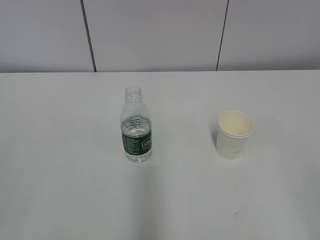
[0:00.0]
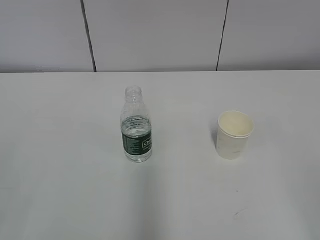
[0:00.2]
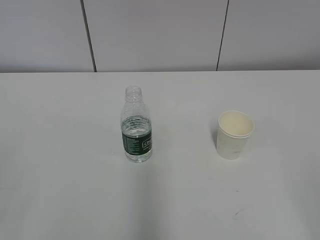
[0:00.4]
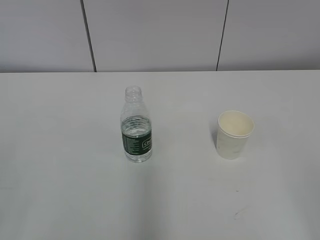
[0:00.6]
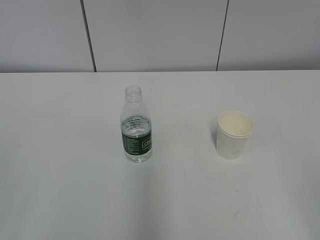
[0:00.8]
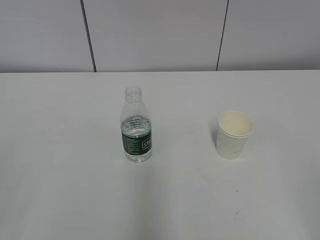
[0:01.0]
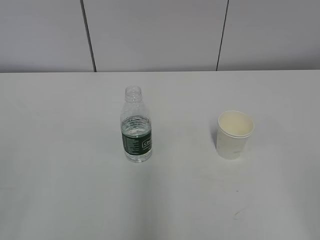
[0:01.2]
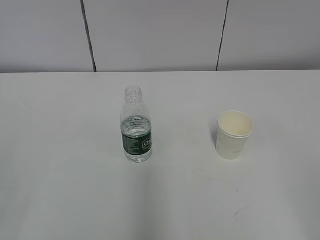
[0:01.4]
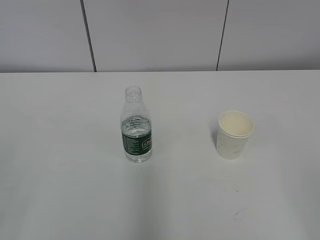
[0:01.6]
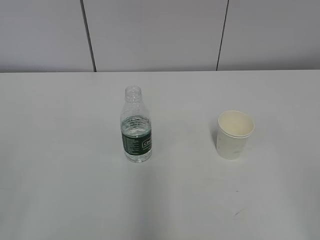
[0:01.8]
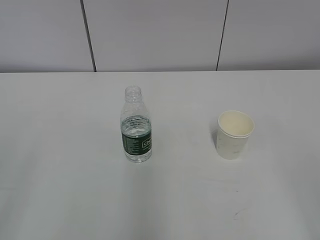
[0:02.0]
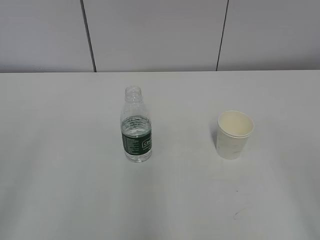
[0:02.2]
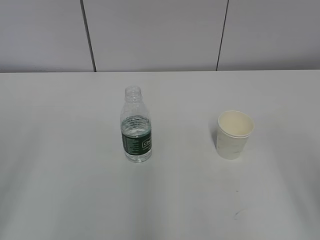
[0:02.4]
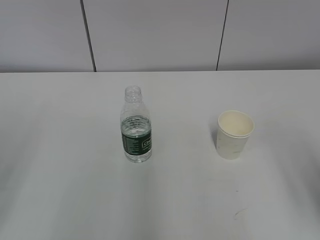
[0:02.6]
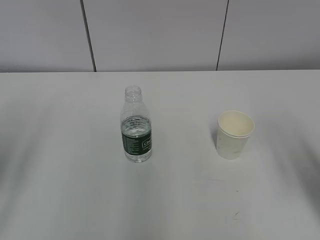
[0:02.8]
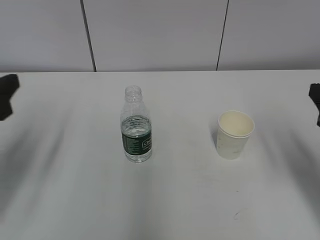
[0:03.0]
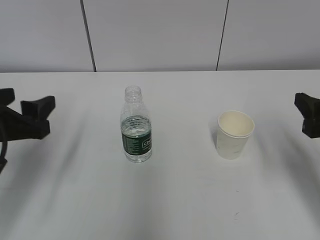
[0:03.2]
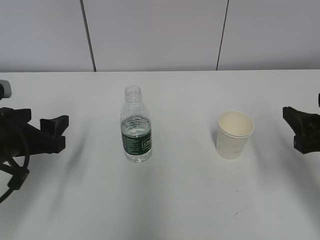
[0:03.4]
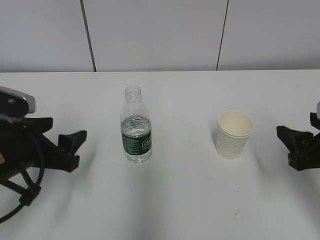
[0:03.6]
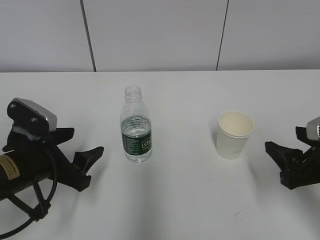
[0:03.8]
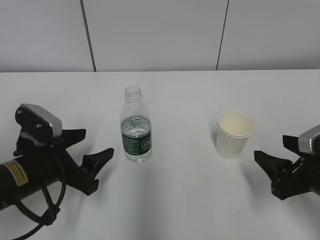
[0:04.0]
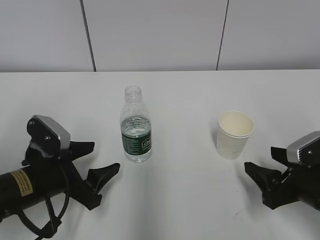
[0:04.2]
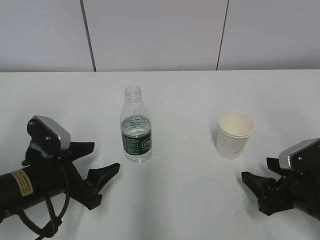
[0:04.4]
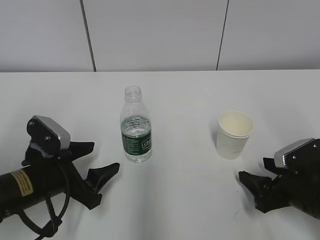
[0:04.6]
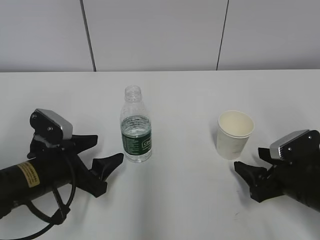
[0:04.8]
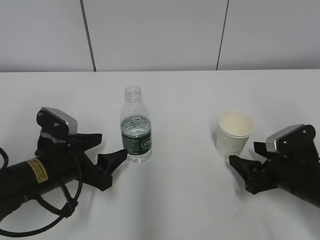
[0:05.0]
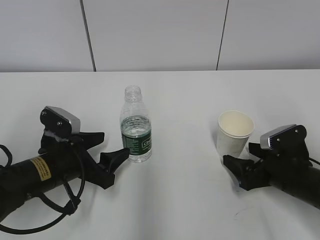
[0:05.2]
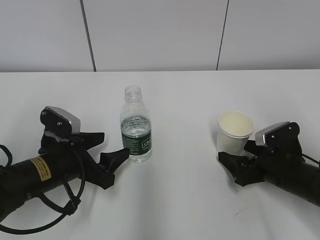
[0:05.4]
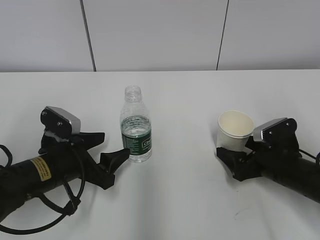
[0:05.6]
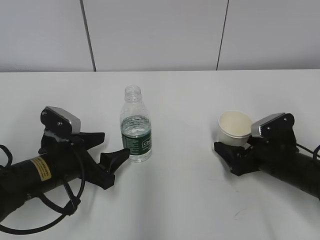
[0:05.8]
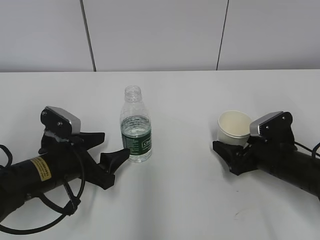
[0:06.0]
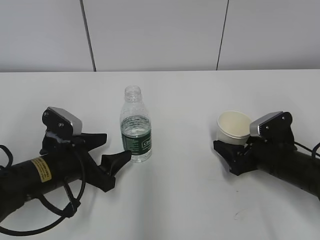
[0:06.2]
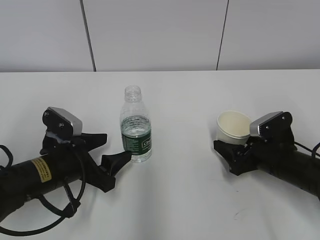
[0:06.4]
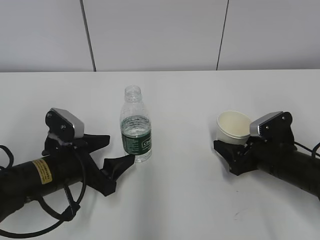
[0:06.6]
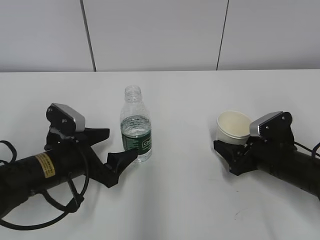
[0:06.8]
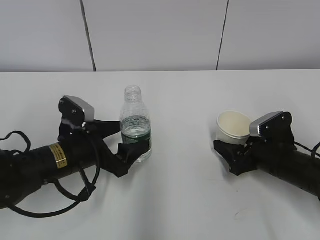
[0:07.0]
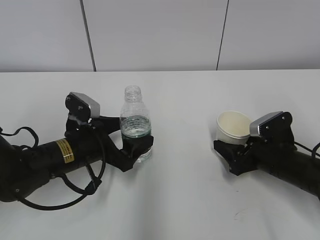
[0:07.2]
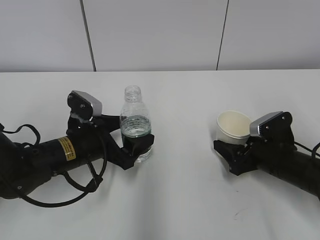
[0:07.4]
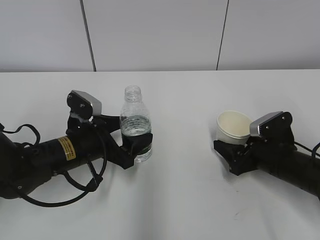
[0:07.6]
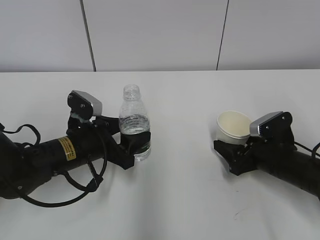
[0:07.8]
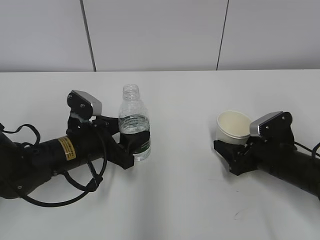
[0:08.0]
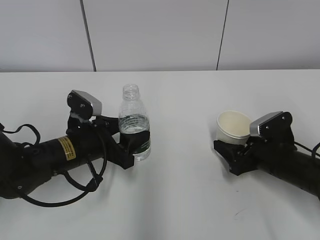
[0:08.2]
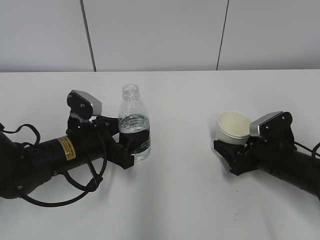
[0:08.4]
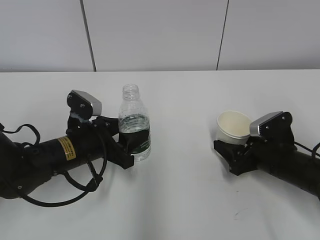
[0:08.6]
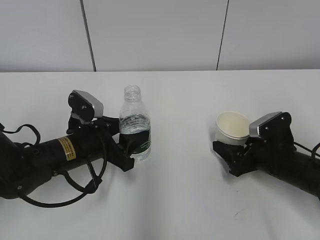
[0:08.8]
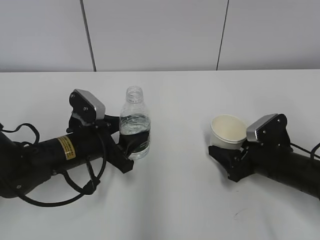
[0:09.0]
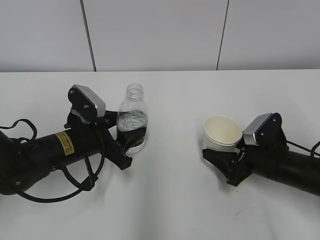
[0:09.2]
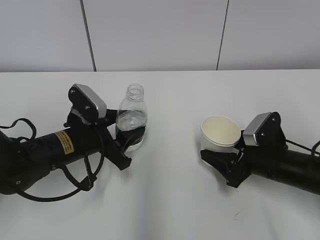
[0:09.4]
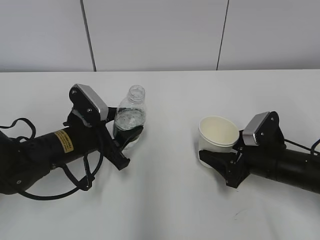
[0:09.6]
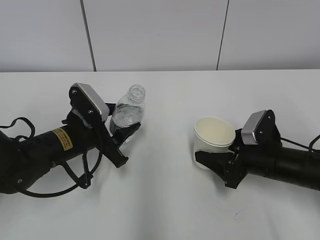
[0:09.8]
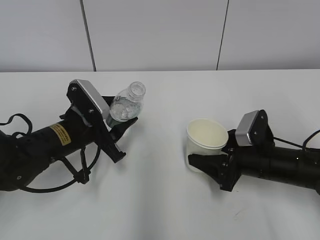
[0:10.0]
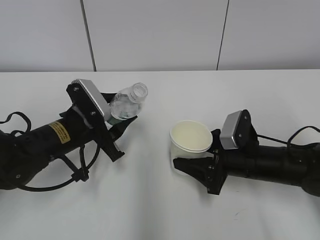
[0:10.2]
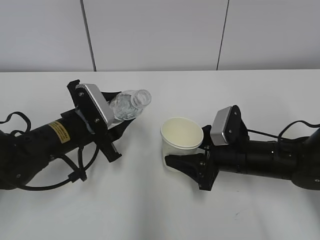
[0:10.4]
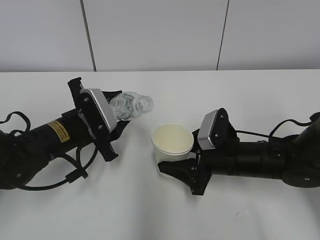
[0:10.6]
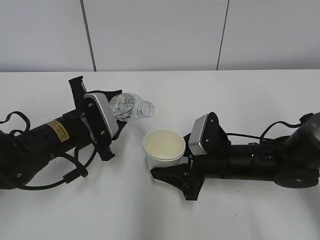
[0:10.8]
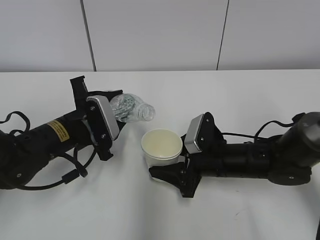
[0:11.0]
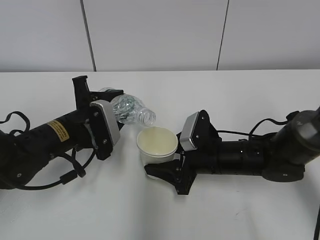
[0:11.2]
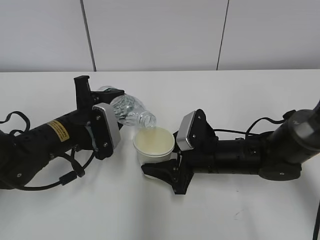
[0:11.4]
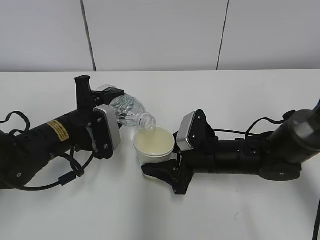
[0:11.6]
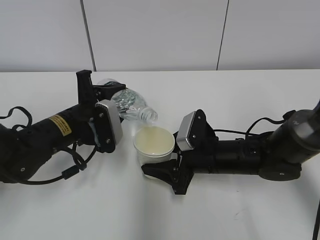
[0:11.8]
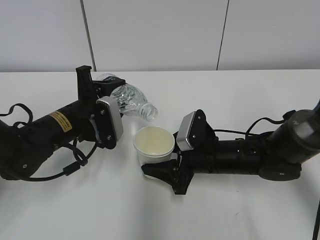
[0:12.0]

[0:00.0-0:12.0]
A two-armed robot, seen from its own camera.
Step, 0:00.0 to 0:07.2: Grab the water bottle with the left hand.
Step, 0:07.6 to 0:10.2: Lift the paper cup with the right hand.
0:01.6 to 0:03.0: The grippers both shift forward by approximately 20 cm. The left gripper opens its fingers.
0:03.0 to 0:04.4: The right gripper is displaced downward by some 15 cm, while the left gripper goes some 15 cm downward and to the right.
0:04.4 to 0:06.0: The right gripper is displaced forward by approximately 10 cm, and opens.
0:06.0 to 0:07.6: The right gripper closes up. Meanwhile the left gripper changes place by approximately 5 cm.
0:07.6 to 0:09.0: The left gripper closes.
0:09.0 to 0:10.4: The right gripper shifts roughly 5 cm to the left.
0:10.4 to 0:12.0: The right gripper shifts by roughly 5 cm.

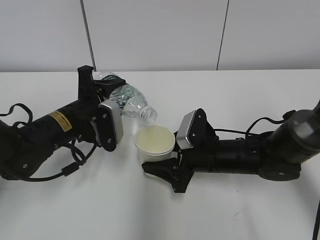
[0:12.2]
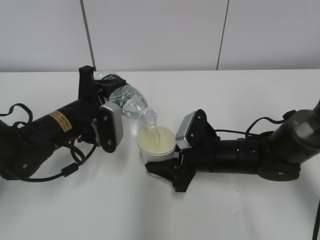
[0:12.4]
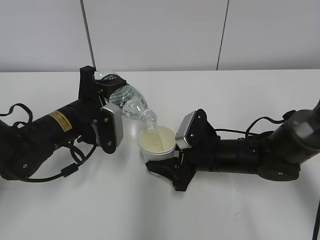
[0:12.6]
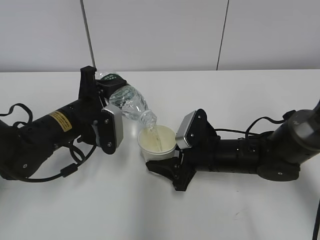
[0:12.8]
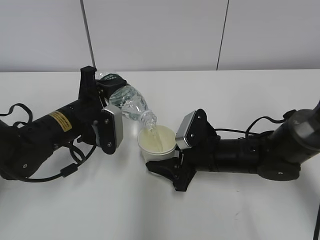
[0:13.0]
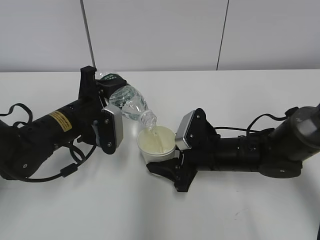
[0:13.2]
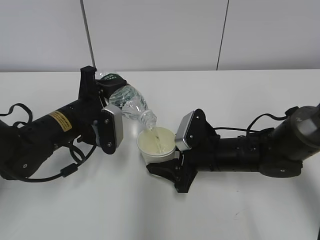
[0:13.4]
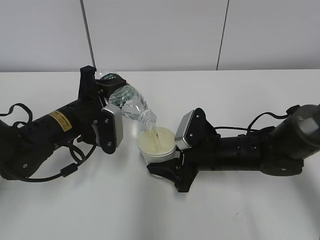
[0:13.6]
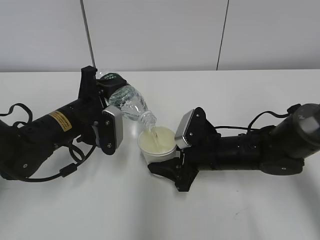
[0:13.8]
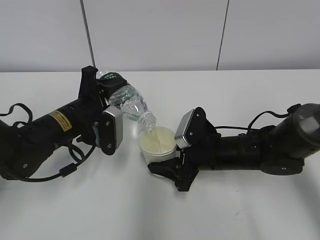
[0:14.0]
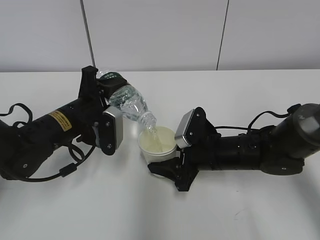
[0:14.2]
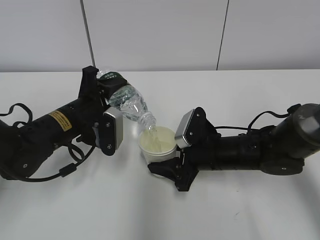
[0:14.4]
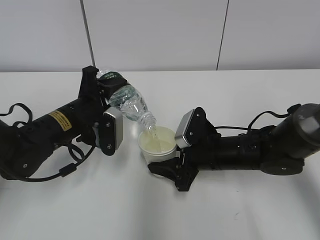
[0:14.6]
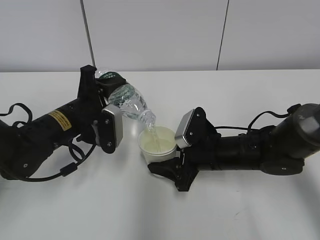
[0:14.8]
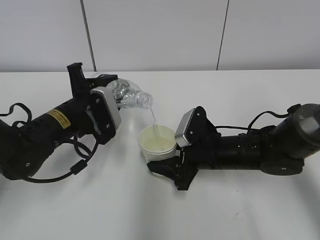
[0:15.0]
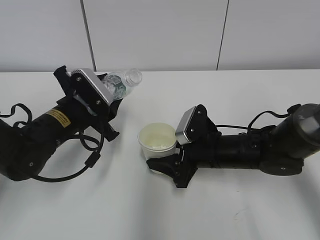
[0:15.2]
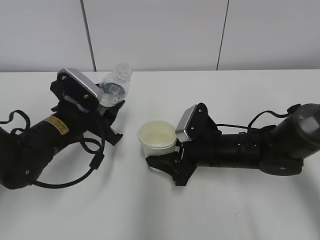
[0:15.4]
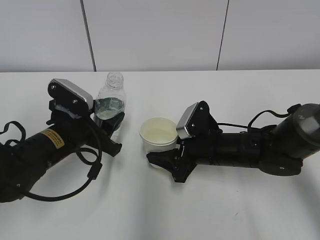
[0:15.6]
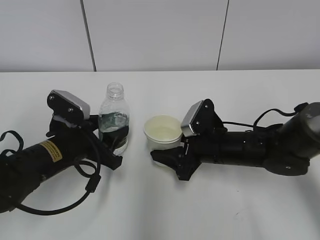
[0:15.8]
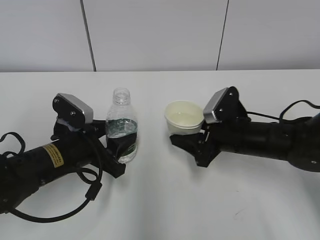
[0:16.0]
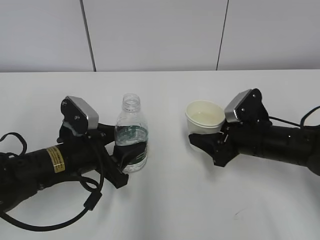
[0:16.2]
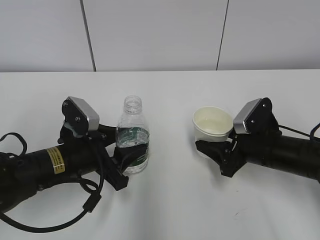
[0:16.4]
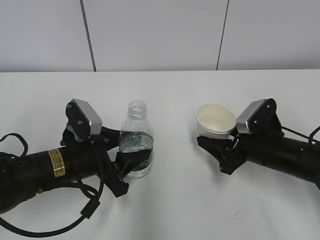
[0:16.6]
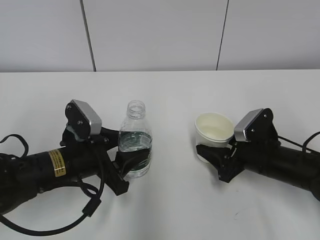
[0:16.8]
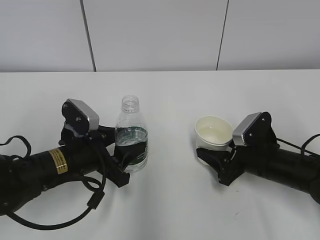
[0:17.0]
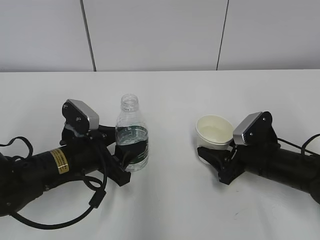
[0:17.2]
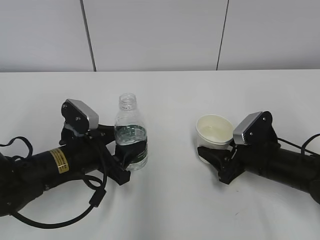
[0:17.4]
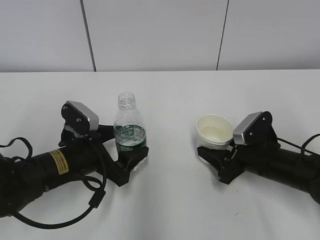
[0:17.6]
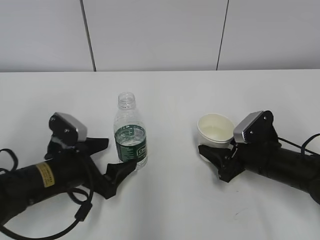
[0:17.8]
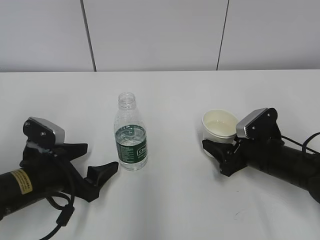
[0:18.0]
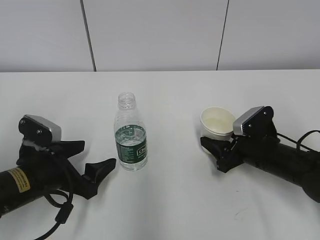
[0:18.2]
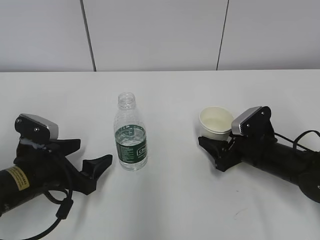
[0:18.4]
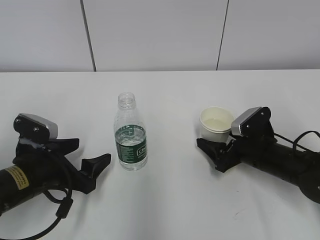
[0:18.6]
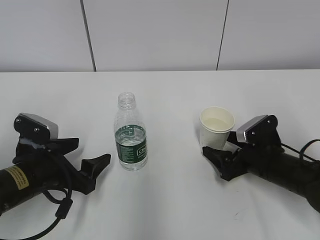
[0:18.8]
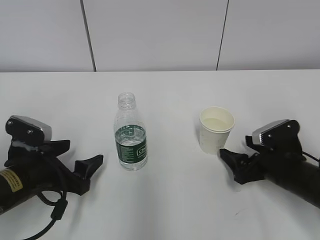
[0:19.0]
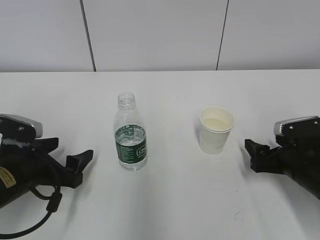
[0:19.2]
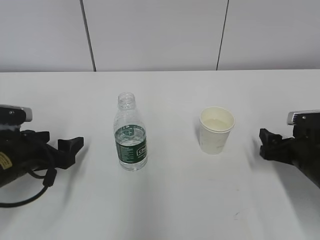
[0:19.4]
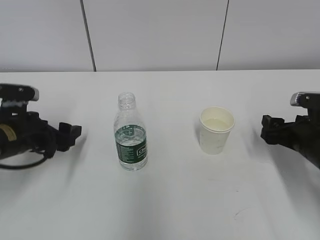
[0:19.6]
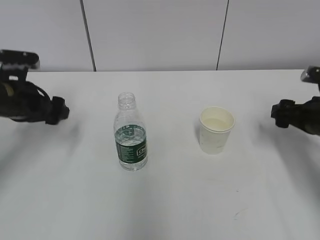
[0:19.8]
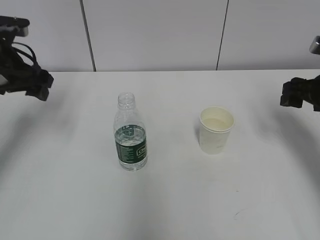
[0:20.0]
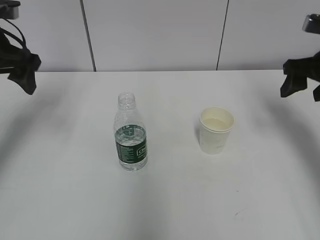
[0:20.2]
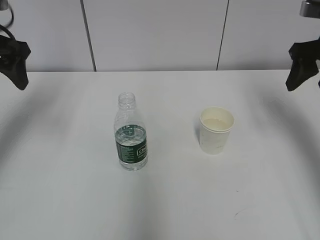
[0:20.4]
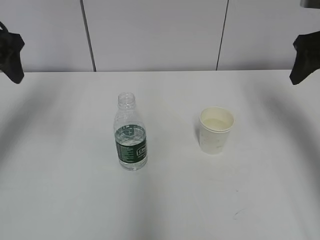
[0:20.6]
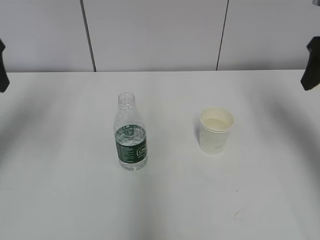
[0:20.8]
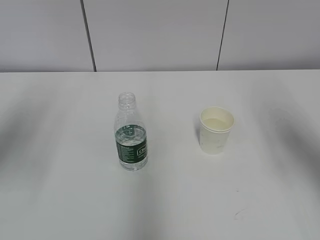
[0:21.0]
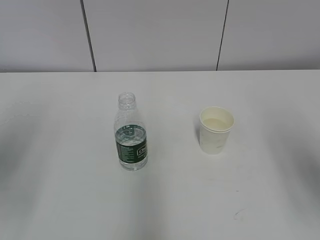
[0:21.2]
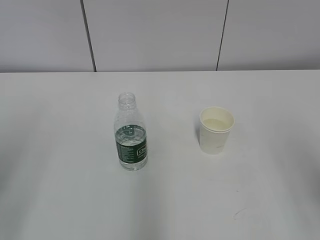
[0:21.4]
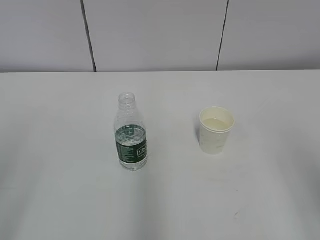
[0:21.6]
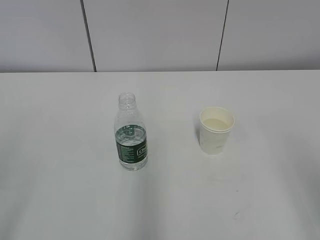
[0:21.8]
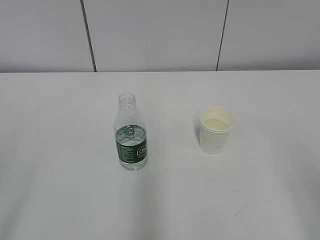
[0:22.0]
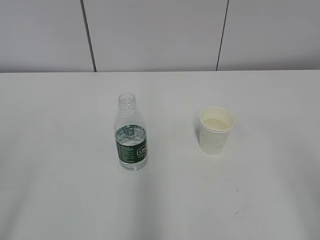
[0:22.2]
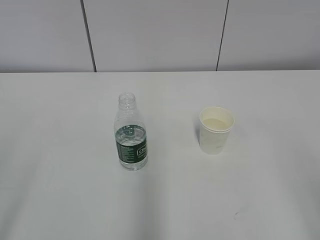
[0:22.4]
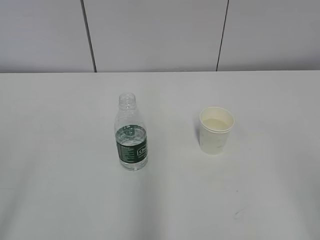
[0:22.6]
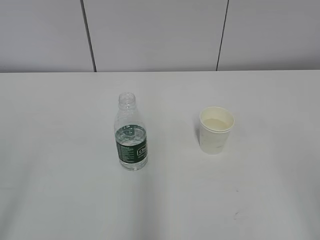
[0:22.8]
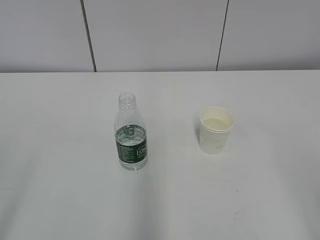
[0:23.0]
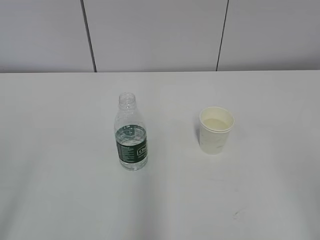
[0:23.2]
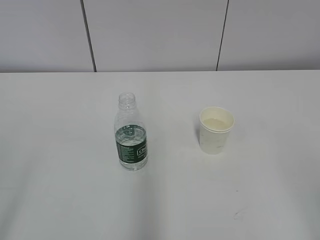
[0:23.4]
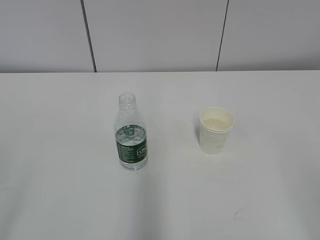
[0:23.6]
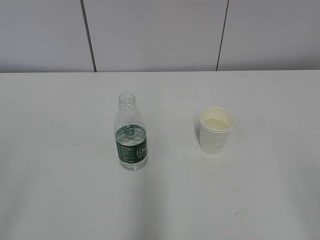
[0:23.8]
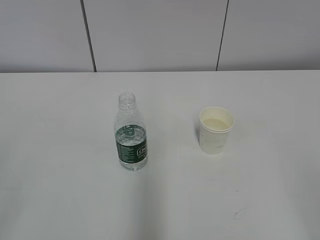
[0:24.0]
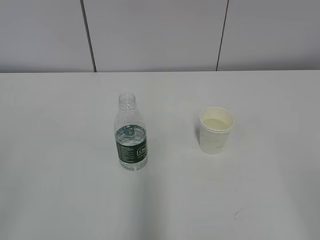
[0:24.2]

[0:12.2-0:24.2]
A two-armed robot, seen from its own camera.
Step, 0:13.6 to 0:14.6: Place the water bottle with the left hand.
Step, 0:14.8 to 0:15.4: Place the paper cup with the right hand.
0:12.2 to 0:13.8: The grippers stay close to where they were, moving slightly.
0:15.2 to 0:16.6: The left gripper travels backward by approximately 5 cm. The right gripper travels to the right by about 10 cm.
0:16.6 to 0:18.2: The left gripper moves to the left, approximately 5 cm, and opens up.
0:18.2 to 0:19.8: The right gripper goes approximately 10 cm upward and to the right, and opens its fingers, while the left gripper moves forward, upward and to the left, approximately 15 cm.
0:19.8 to 0:21.2: The right gripper goes approximately 20 cm upward and backward, and closes. The left gripper goes some 20 cm backward and upward.
0:21.2 to 0:22.6: Both grippers move backward, about 15 cm.
